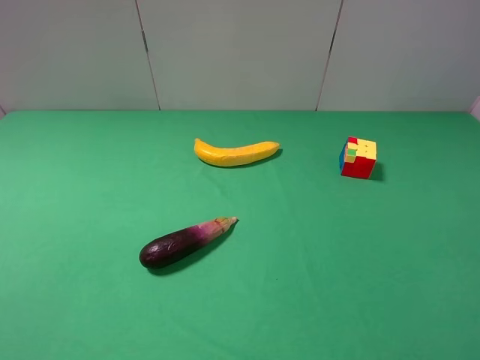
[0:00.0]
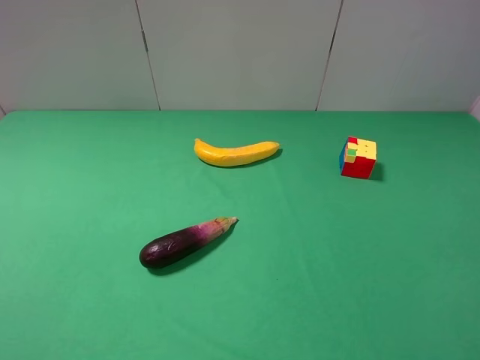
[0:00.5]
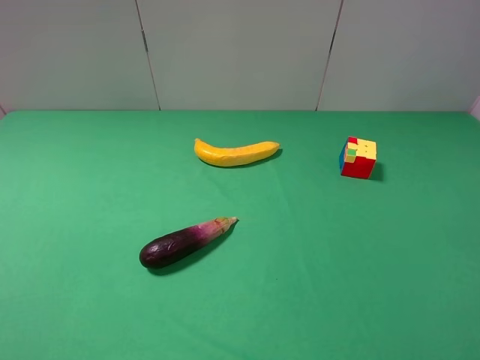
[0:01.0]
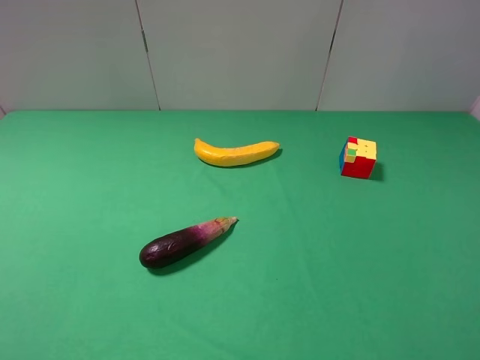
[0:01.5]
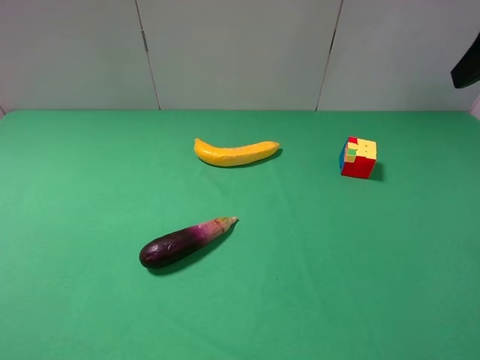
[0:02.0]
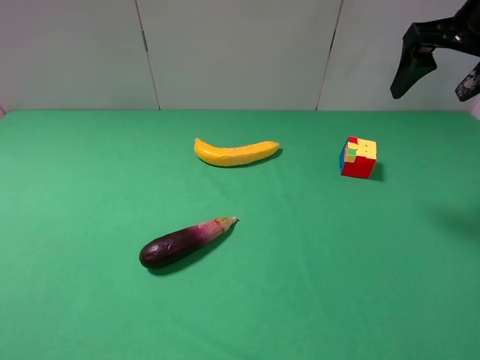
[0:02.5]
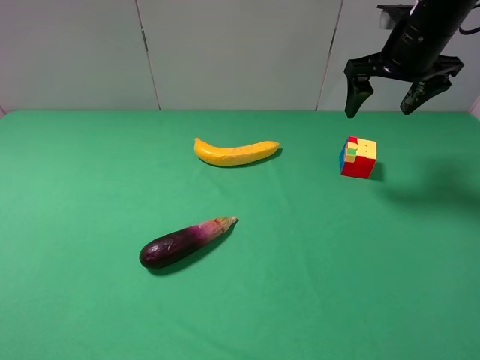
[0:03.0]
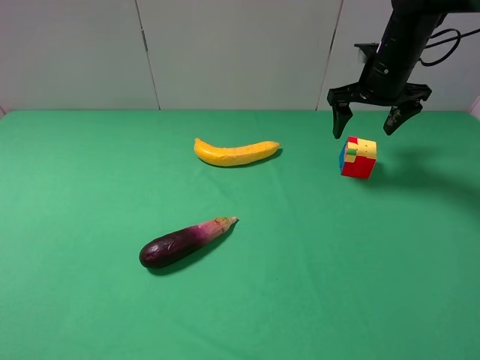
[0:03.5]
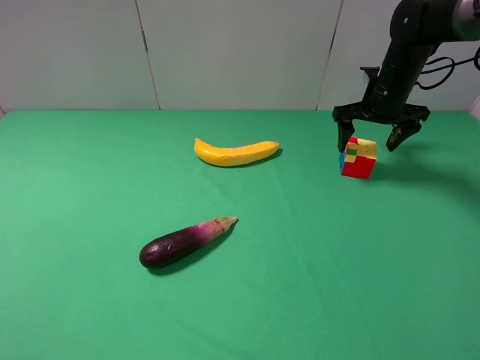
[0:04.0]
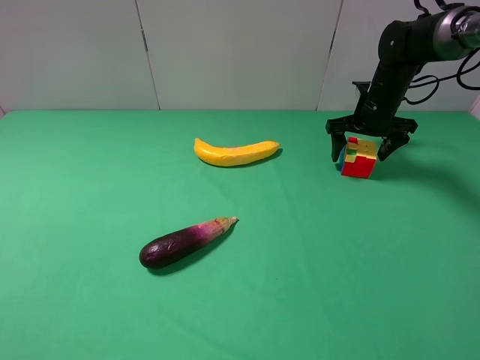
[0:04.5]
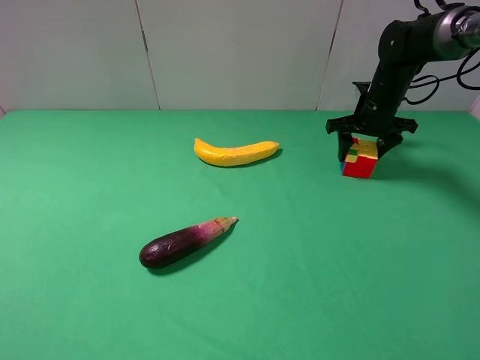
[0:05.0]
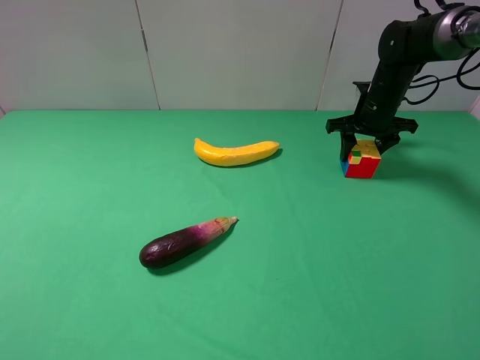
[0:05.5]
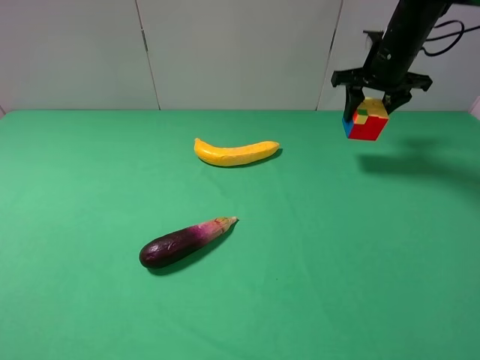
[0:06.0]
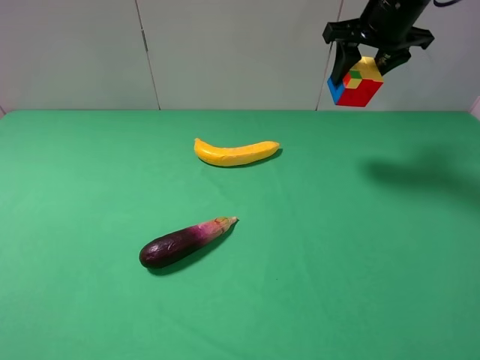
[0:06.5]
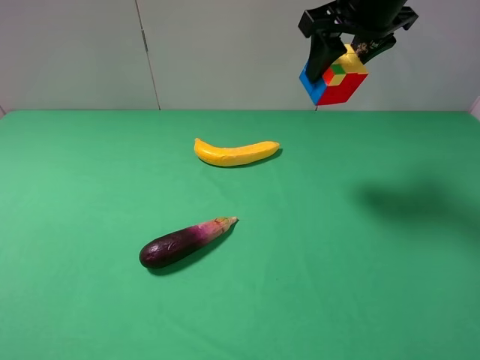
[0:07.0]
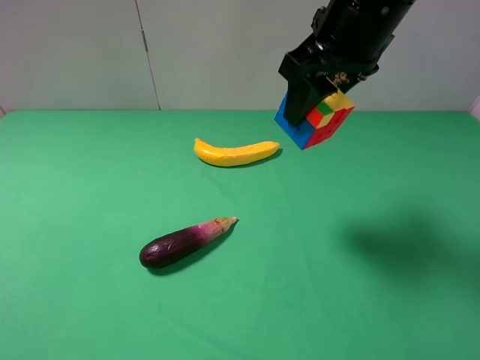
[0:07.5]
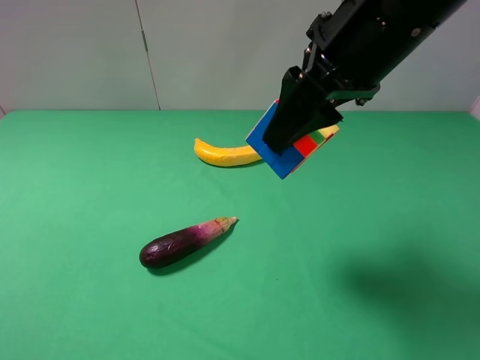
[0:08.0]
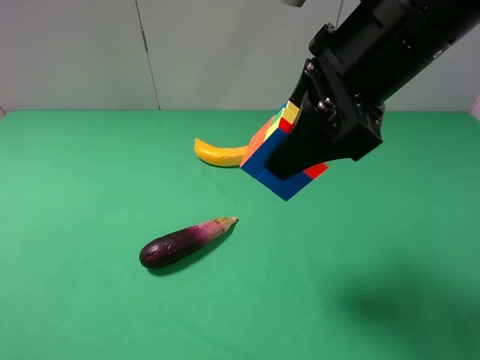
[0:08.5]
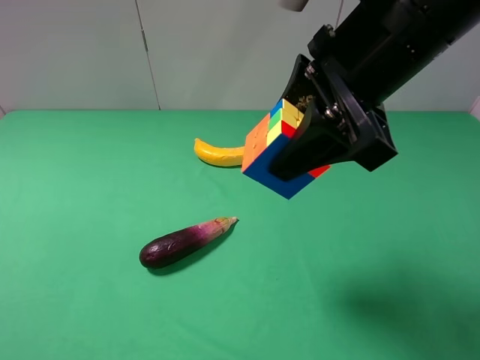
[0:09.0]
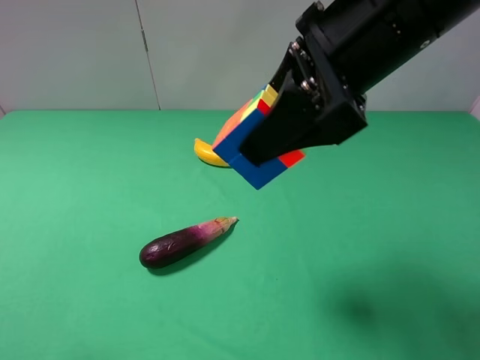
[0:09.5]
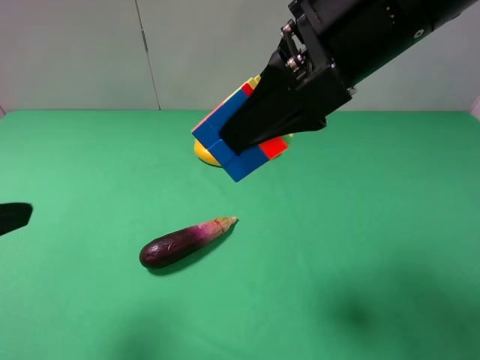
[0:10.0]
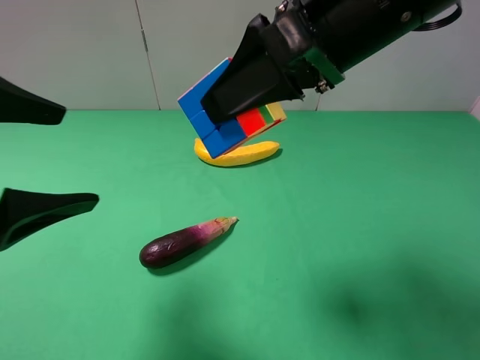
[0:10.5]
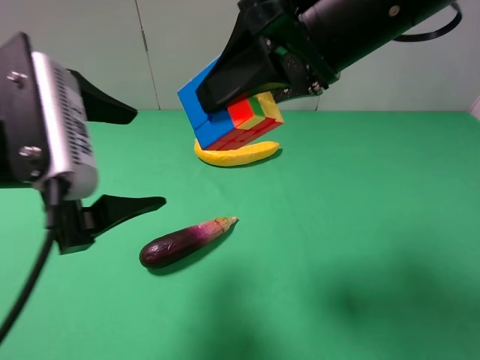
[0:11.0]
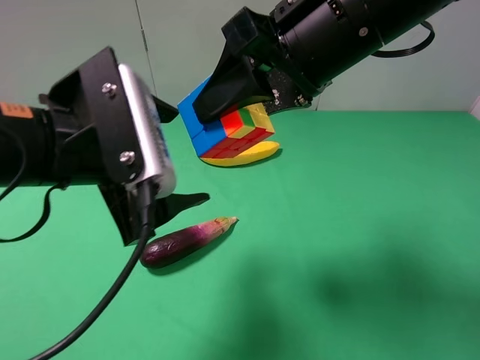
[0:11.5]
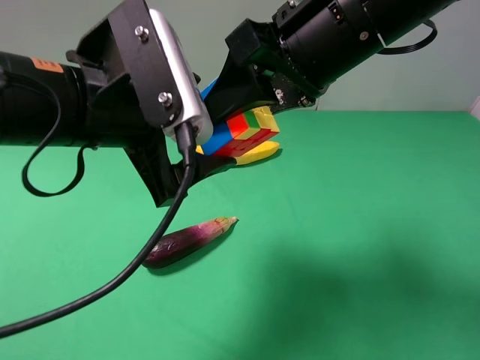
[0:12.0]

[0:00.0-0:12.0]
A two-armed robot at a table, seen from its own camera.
Task of the whole recording: use the right gripper to pick up the item and transfer it from the right gripper to the left gripper.
Step, 0:00.0 to 0:05.0: Use the right gripper to grab the Rubik's Cube on the right side of the table.
0:02.0 to 0:04.0: The right gripper goes some 30 cm forward and downward.
0:04.0 to 0:06.0: The right gripper heads upward, covering approximately 5 cm, and closes up.
0:06.0 to 0:08.0: The right gripper is displaced backward, to the left and upward by roughly 30 cm.
0:08.0 to 0:10.0: The left gripper shifts approximately 10 cm forward.
0:10.0 to 0:12.0: The left gripper shifts roughly 20 cm to the right and forward.

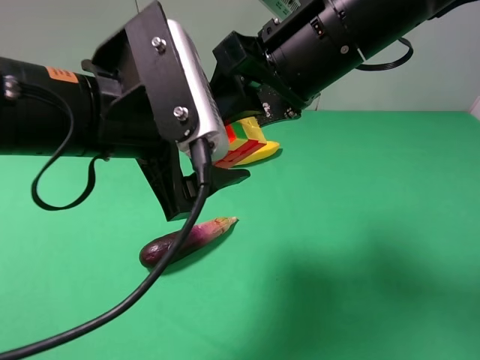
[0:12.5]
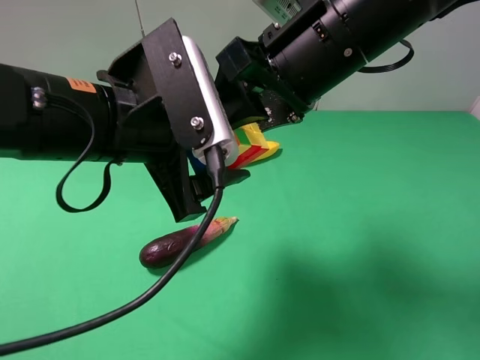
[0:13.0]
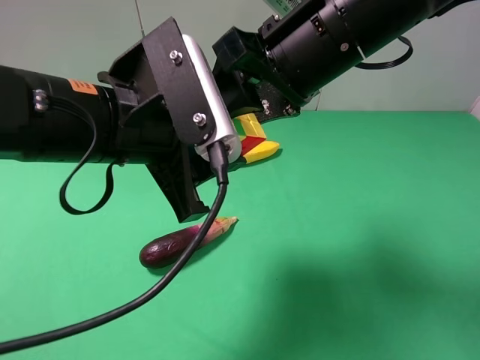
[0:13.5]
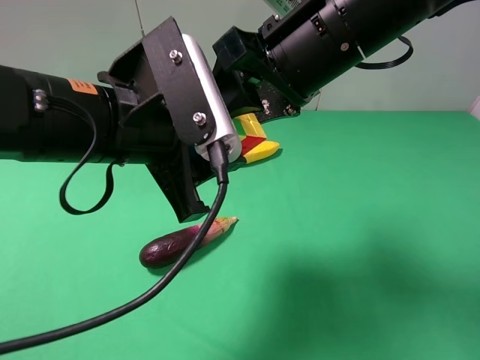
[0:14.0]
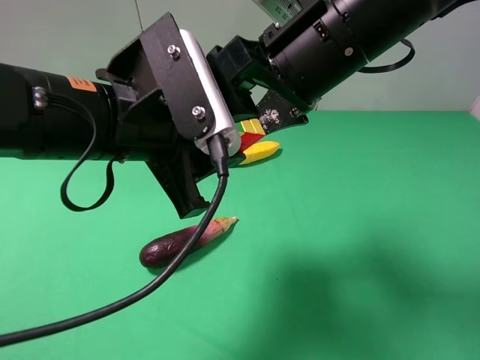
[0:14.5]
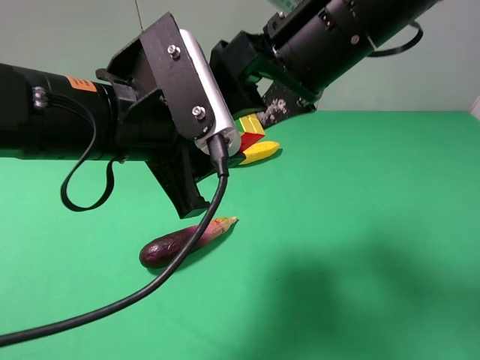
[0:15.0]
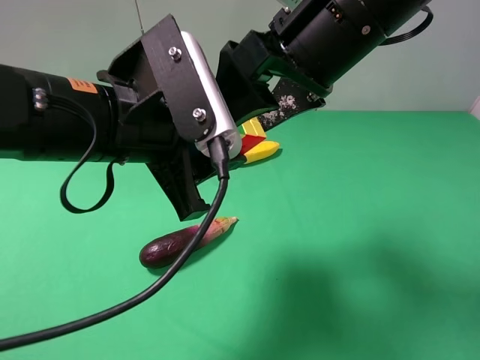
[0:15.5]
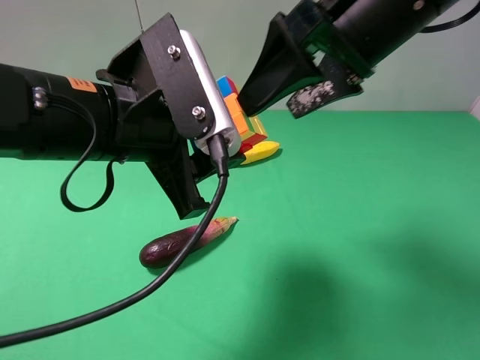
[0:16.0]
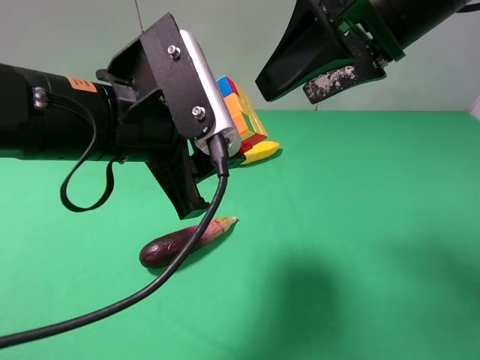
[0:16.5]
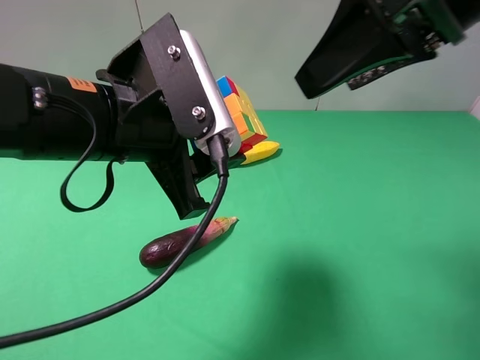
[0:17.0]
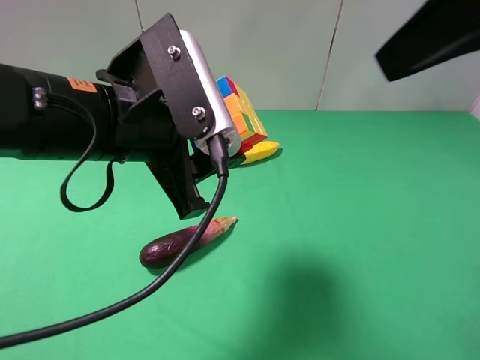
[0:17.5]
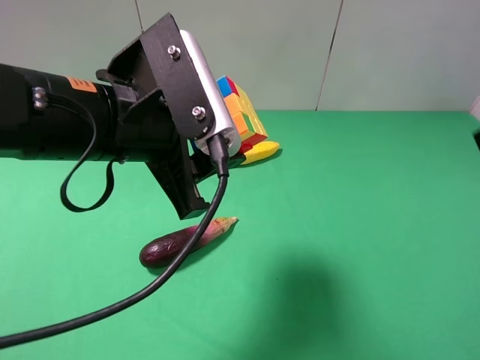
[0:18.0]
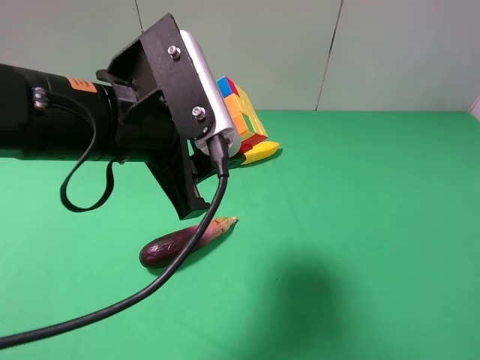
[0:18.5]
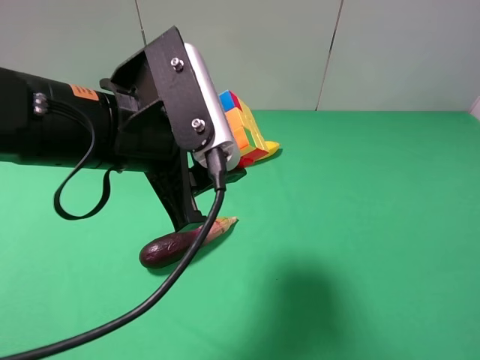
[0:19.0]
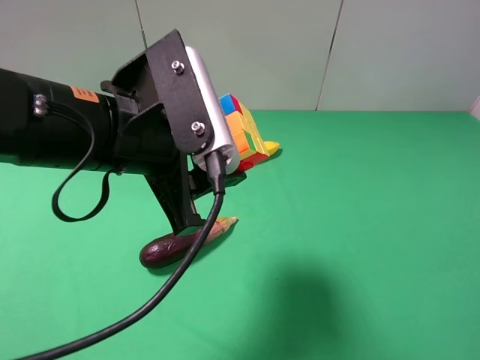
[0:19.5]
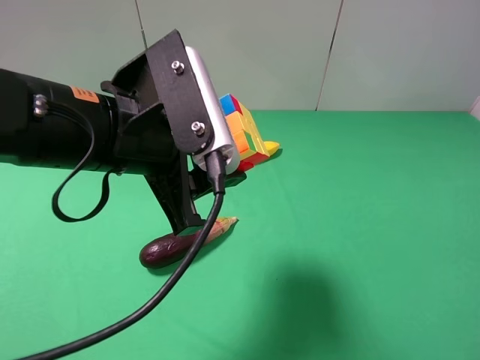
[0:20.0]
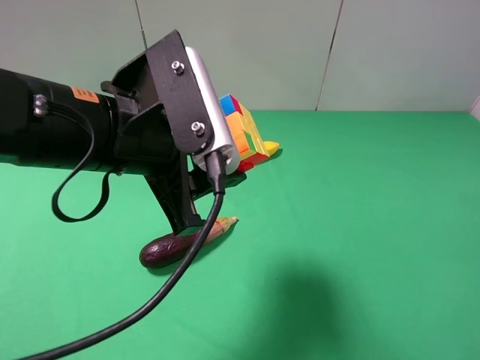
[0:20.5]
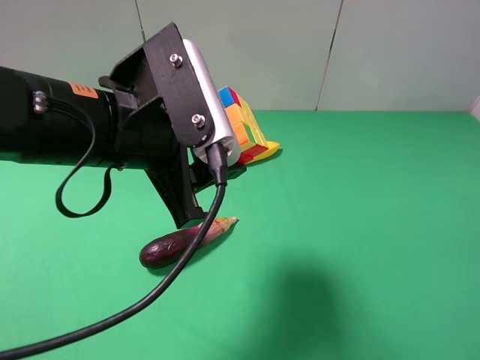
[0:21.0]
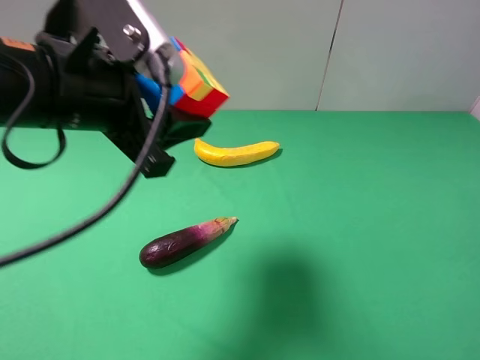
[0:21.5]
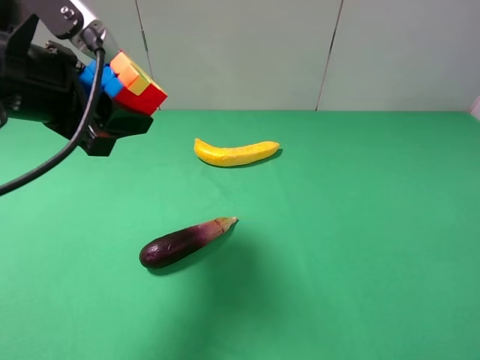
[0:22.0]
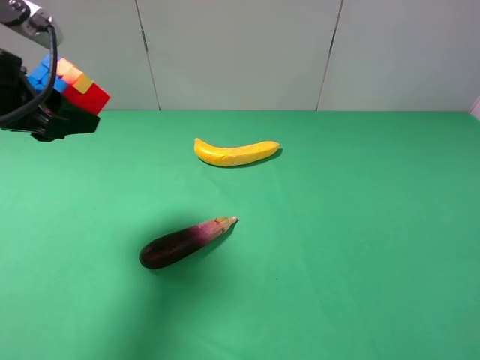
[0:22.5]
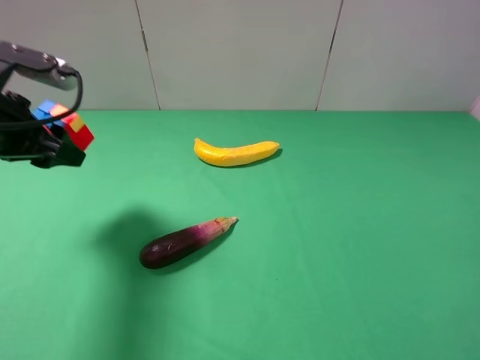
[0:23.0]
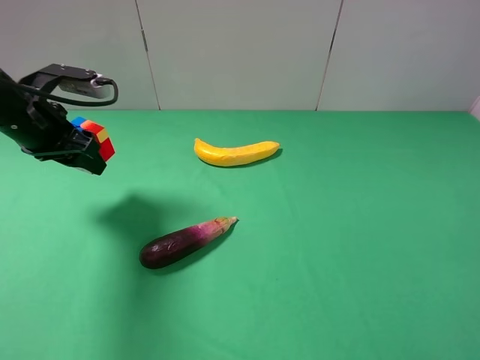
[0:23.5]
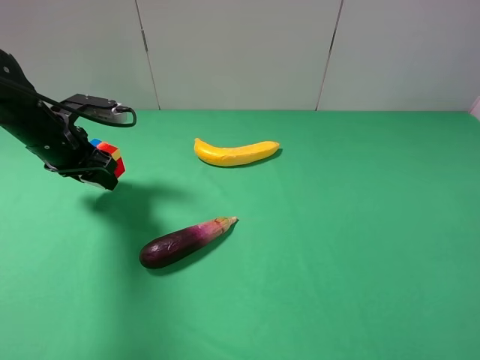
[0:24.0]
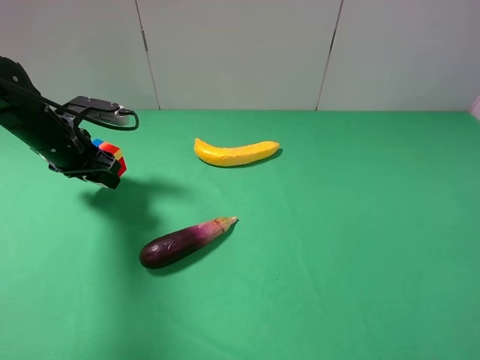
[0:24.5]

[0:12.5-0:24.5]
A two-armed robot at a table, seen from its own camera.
Task of the whole recording: use the right gripper to pick up the item and transfer it from the right gripper to the left gripper.
Step, 0:12.5 to 0:15.0: Pass the Rubik's Cube to the left gripper.
0:12.5 to 0:14.5: The right gripper opens. The left gripper closes its fingers.
0:14.5 to 0:16.5: The right gripper shifts some 5 cm to the right.
0:16.5 to 0:18.5: The right gripper is displaced backward and to the right by some 25 cm.
0:20.5 to 0:22.5: The left gripper goes approximately 15 cm to the left.
0:22.5 to 0:24.5: The left gripper is displaced downward and forward by some 15 cm.

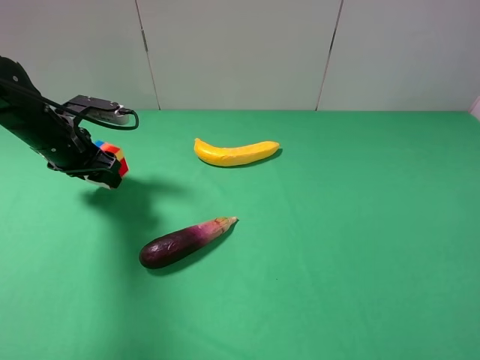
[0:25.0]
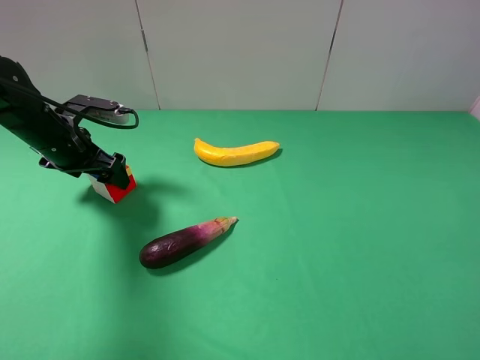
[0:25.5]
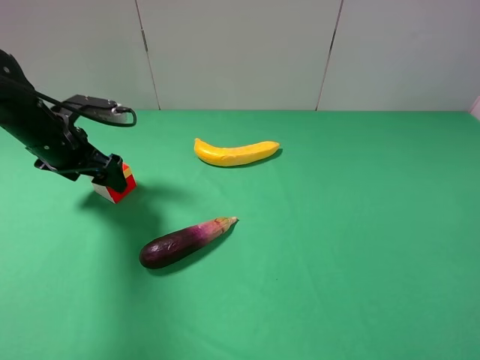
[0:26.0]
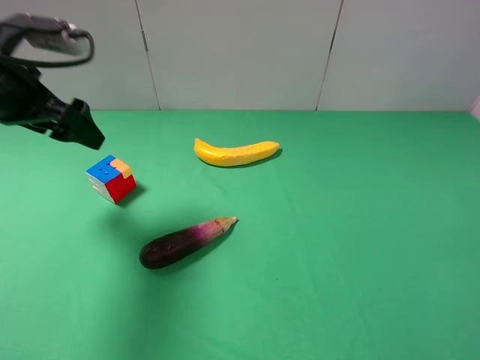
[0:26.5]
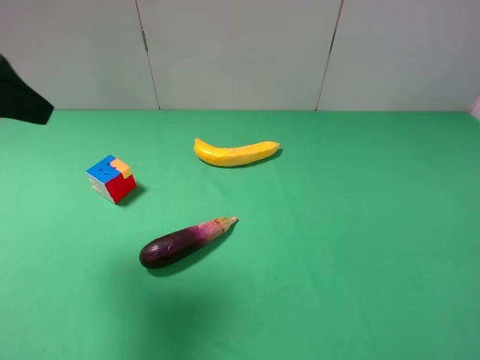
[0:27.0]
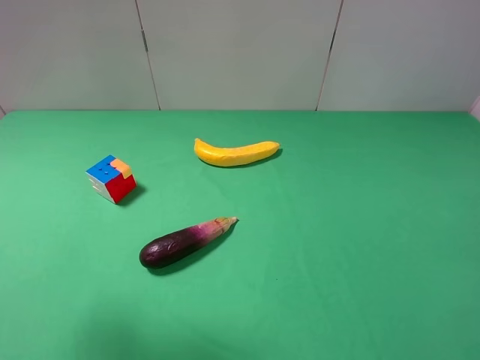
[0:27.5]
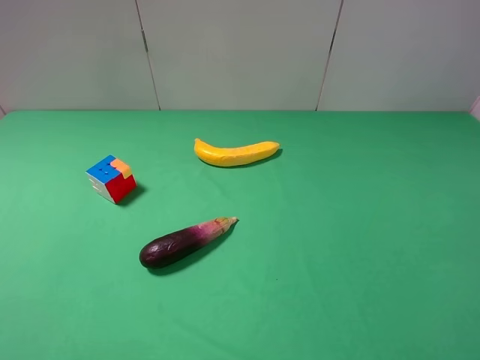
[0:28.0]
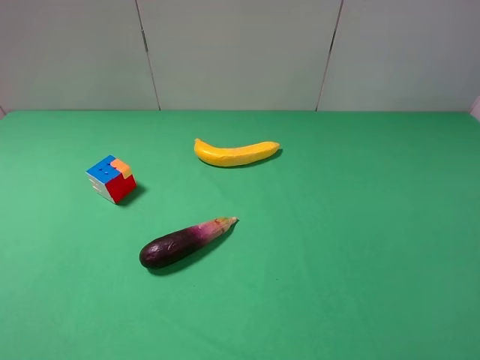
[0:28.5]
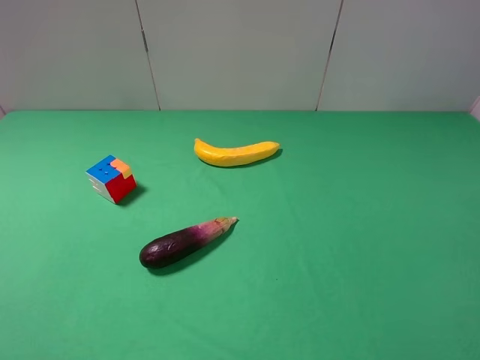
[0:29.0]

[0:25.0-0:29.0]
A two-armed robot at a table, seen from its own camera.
Task of the whole recording: use the right gripper to pick up the item and transfer it from the right gripper to the left gripper.
0:25.0 to 0:27.0: The left gripper shifts approximately 25 cm upward and backward, and opens its fingers.
0:27.0 to 0:29.0: The left gripper goes about 20 cm backward.
